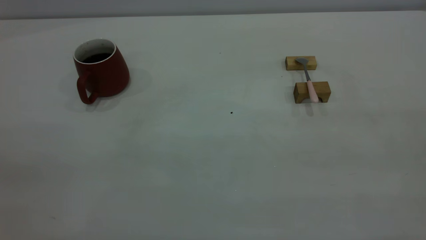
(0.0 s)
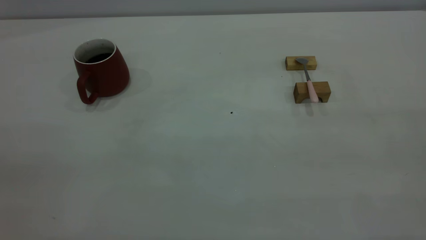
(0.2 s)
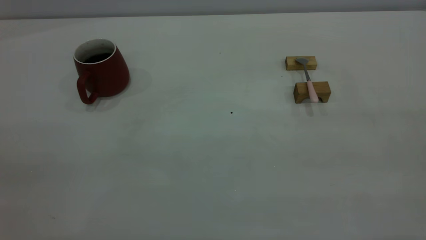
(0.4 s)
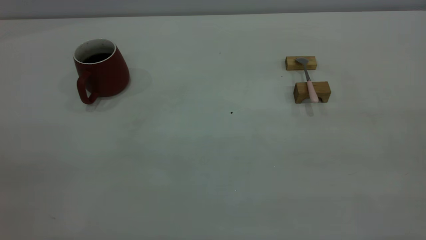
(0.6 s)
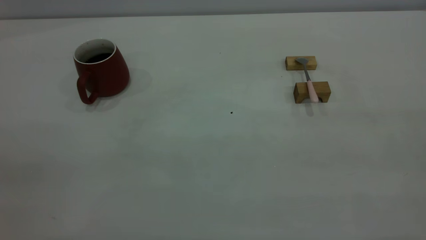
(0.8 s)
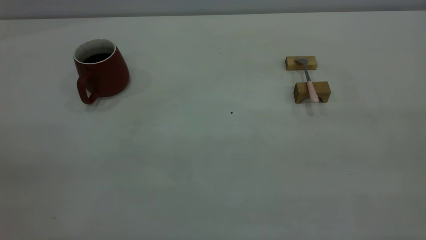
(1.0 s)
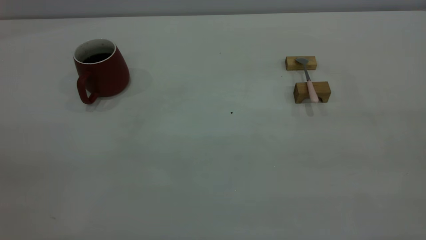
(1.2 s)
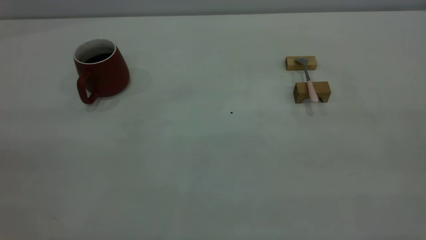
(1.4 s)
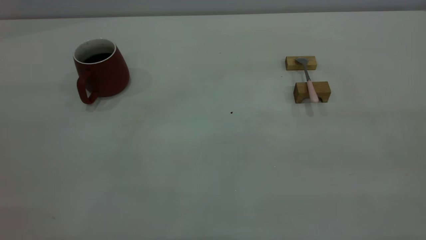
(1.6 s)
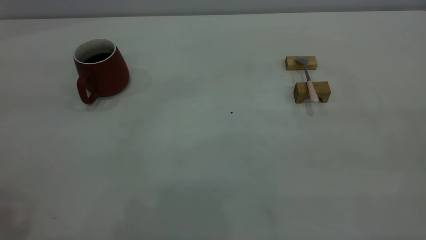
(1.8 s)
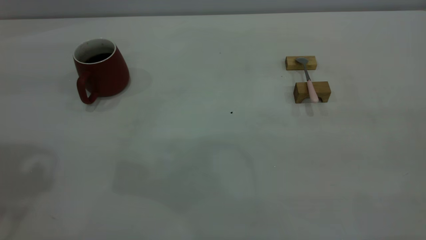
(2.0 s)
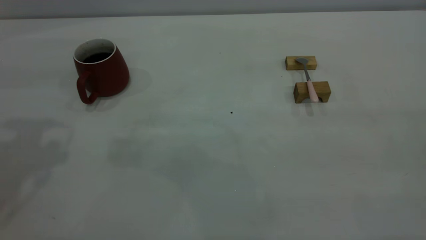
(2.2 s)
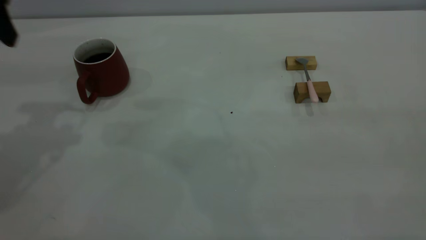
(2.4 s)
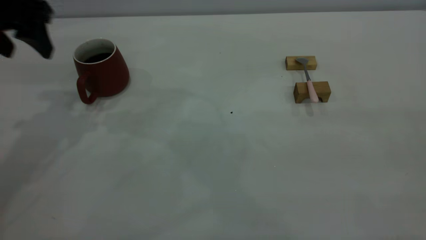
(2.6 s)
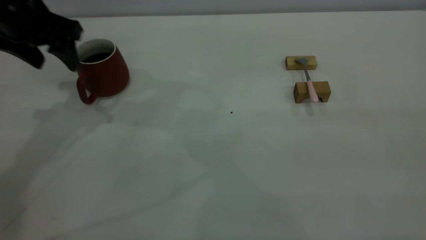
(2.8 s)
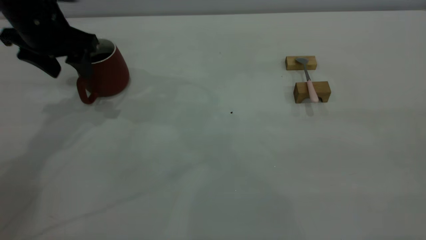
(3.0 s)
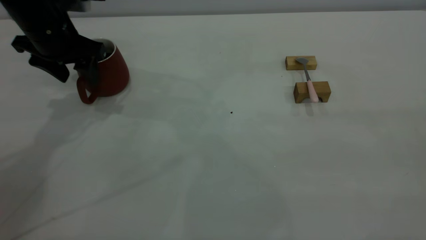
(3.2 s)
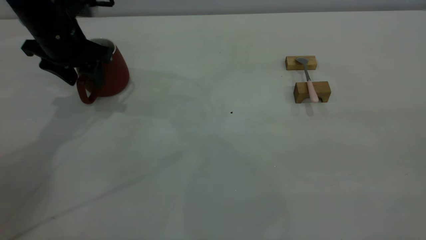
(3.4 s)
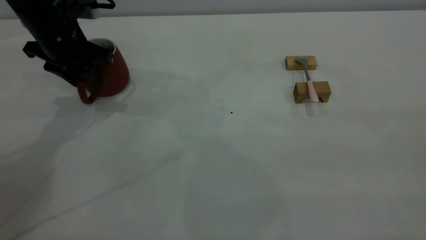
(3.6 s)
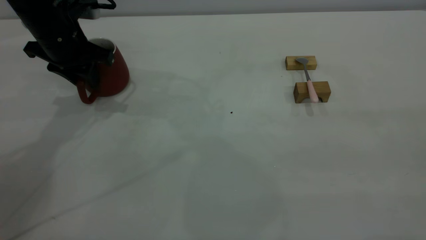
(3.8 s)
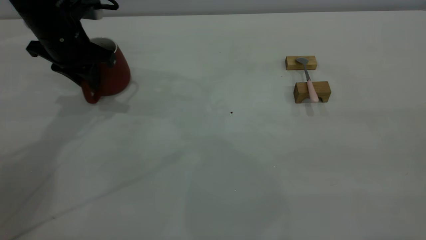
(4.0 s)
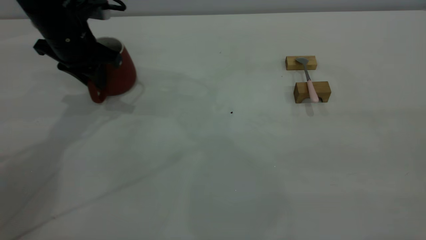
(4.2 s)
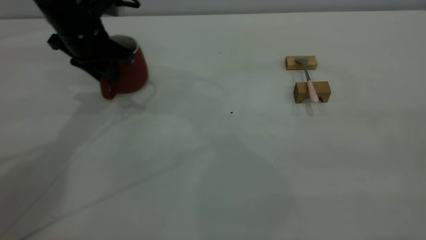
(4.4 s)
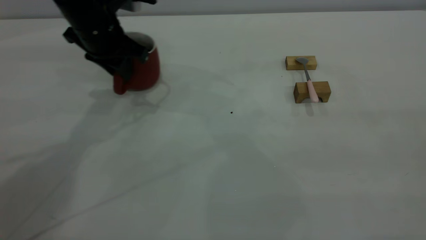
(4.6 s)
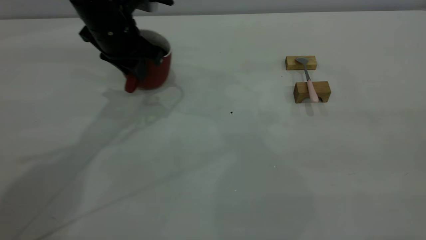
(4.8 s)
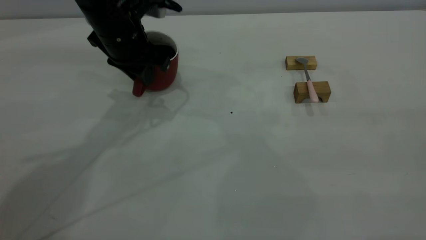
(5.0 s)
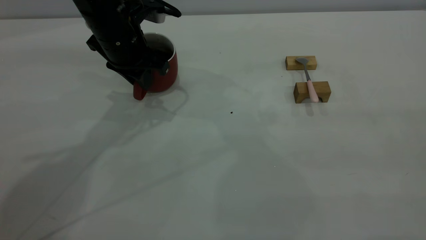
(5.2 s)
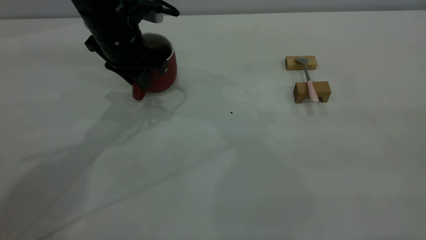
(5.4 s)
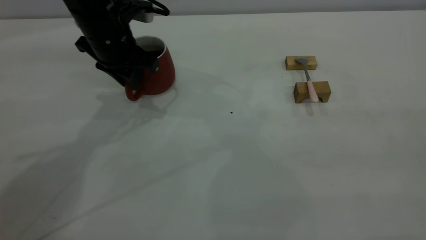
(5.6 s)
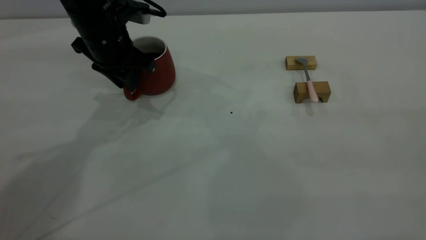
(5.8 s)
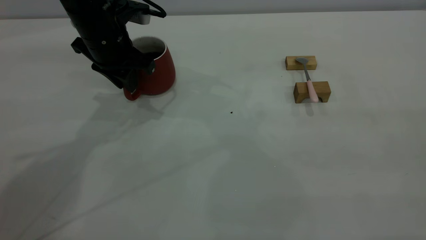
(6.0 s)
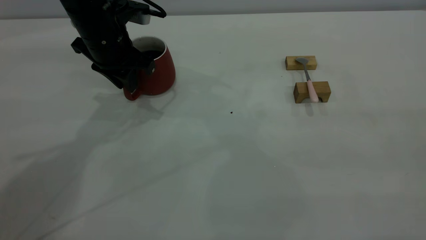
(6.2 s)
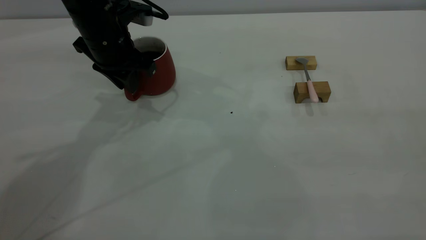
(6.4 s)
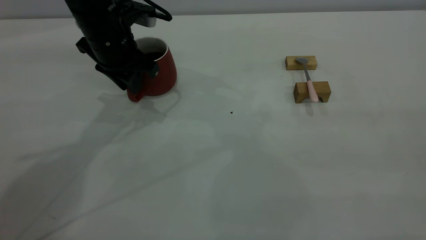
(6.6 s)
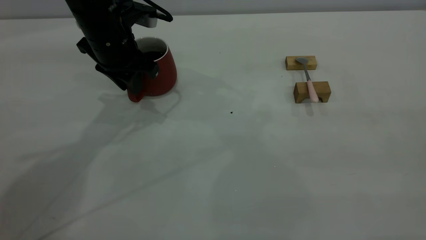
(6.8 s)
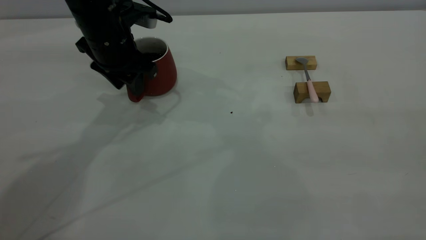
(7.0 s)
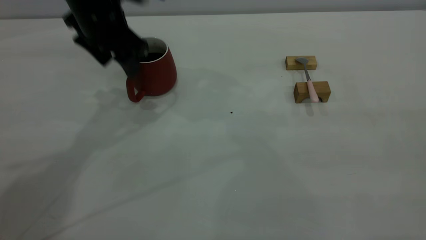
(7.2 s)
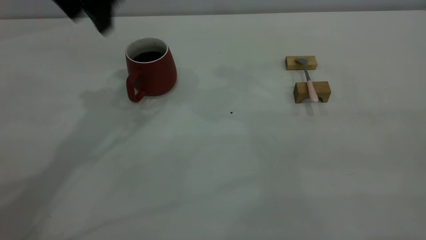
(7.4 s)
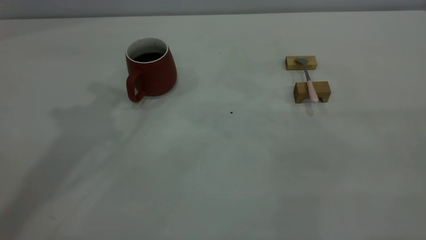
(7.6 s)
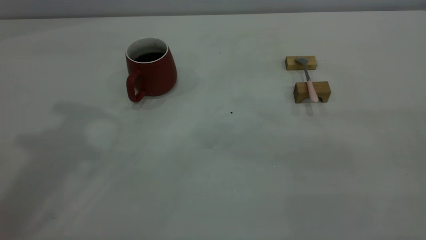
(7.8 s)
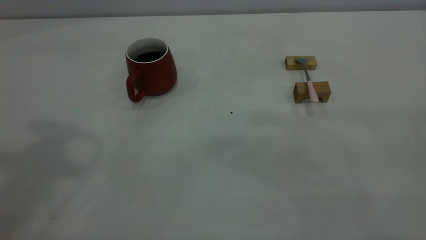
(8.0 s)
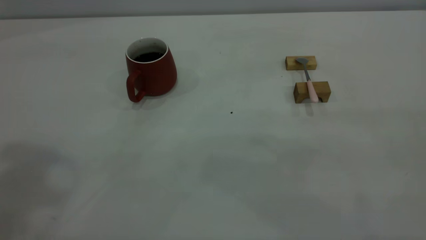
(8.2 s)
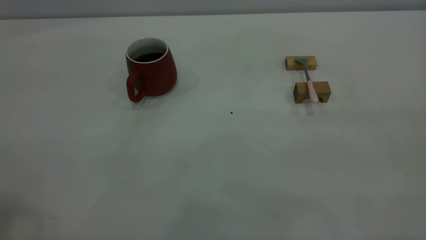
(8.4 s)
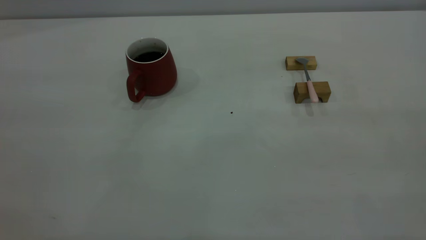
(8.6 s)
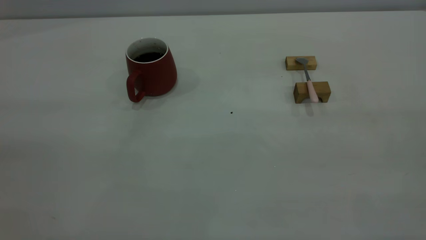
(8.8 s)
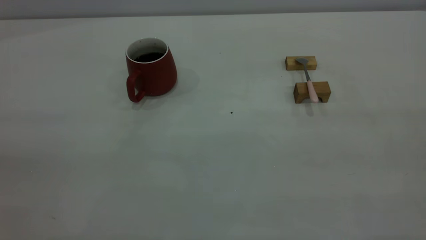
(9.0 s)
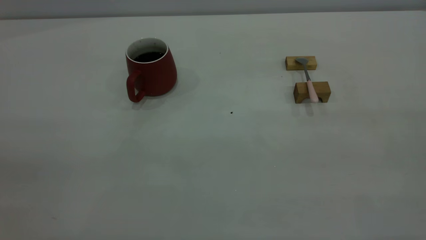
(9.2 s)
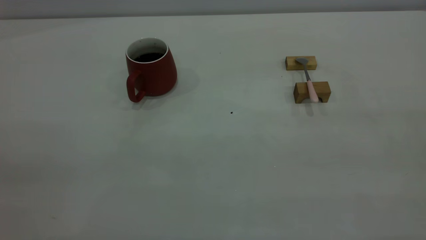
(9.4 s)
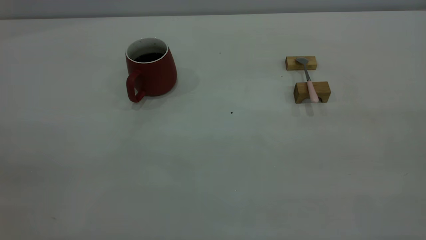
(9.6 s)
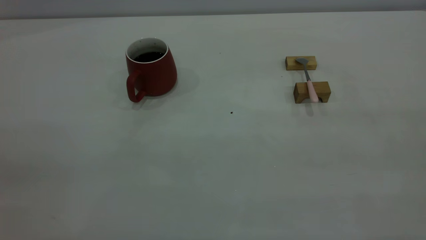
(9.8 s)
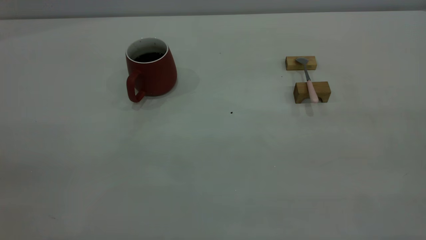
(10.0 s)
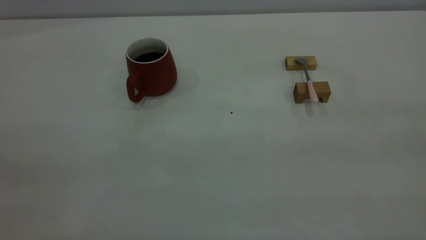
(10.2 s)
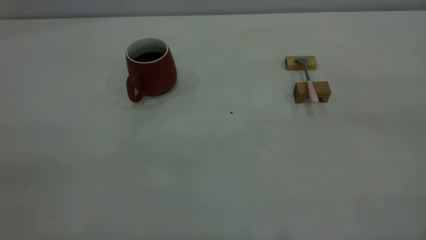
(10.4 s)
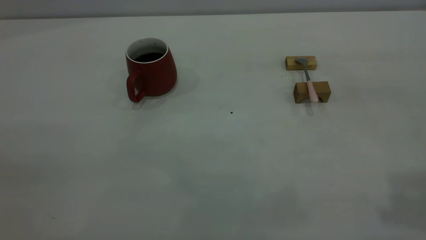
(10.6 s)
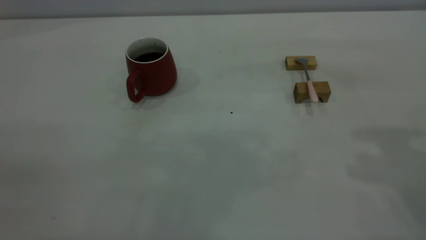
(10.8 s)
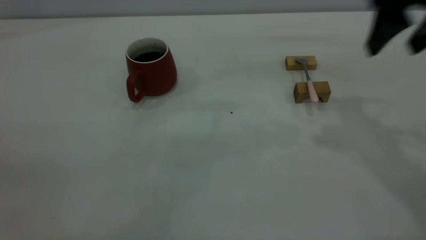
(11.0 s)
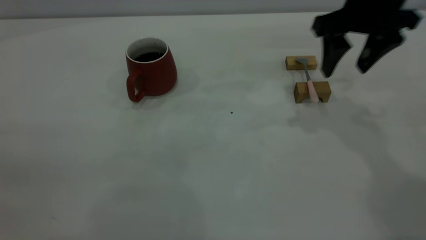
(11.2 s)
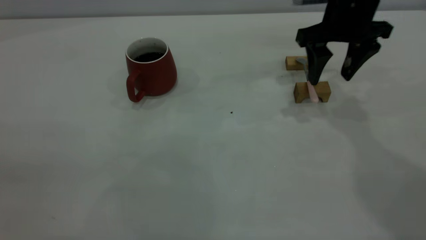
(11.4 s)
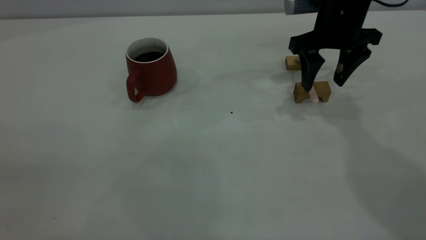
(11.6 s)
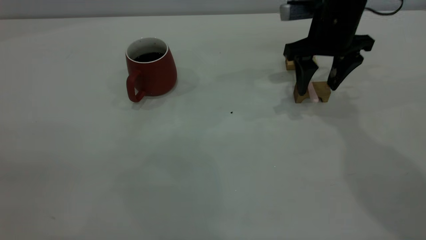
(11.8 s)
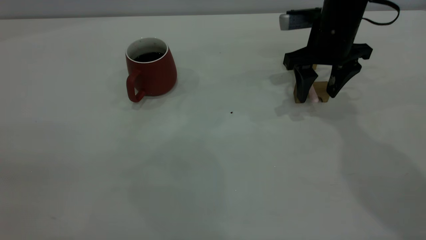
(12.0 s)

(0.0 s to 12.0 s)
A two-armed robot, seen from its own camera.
Step, 0.0 s - 7.2 s: Move the cup with coffee to the center of view.
1.6 s - 3.0 s: The left gripper is displaced forward and downward by some 40 cm, and opens its fingers.
3.0 s - 4.4 s: The left gripper goes roughly 5 cm to the right, and closes its fingers.
4.4 s - 6.0 s: The grippers stay close to where they were, moving slightly.
6.0 s - 7.6 s: The left gripper goes some 25 cm upward, and opens up.
10.4 s - 12.0 s: The right gripper heads forward and downward, covering approximately 40 cm.

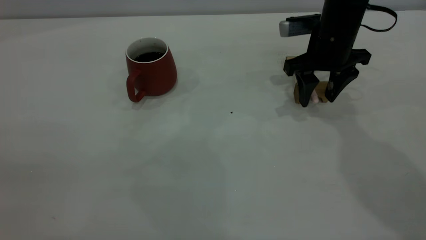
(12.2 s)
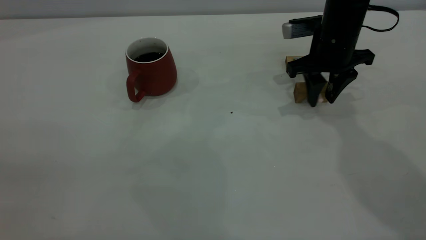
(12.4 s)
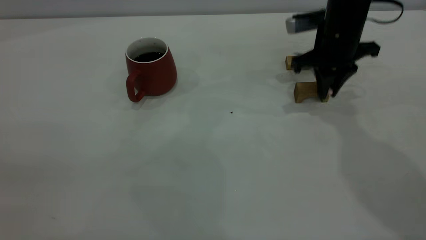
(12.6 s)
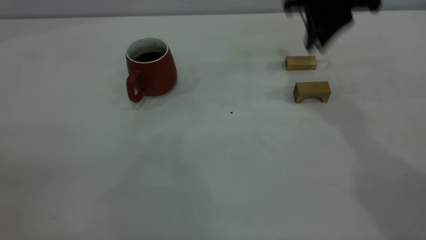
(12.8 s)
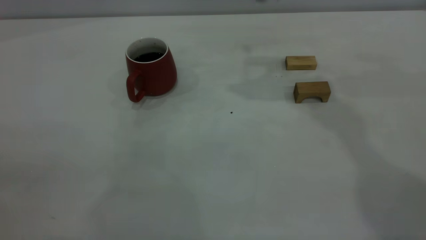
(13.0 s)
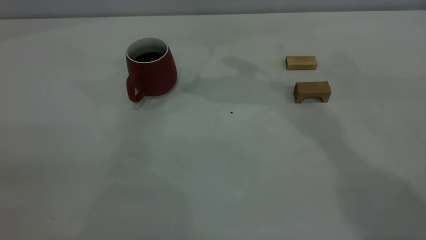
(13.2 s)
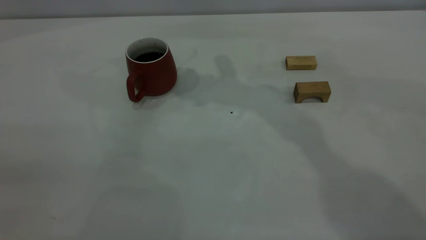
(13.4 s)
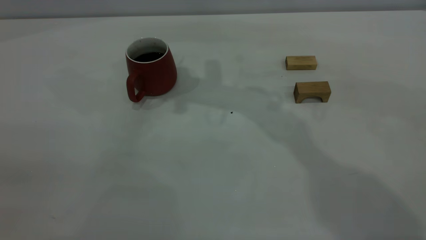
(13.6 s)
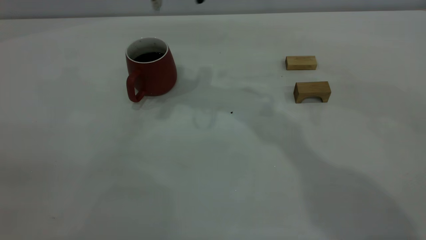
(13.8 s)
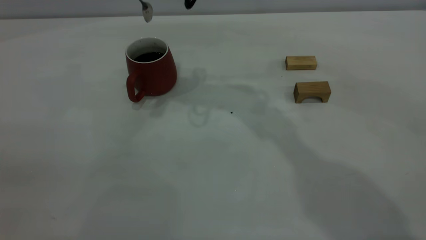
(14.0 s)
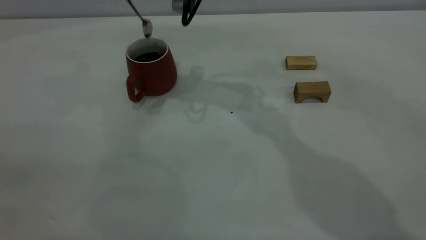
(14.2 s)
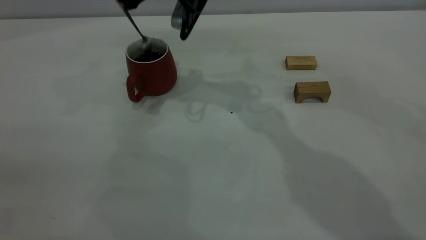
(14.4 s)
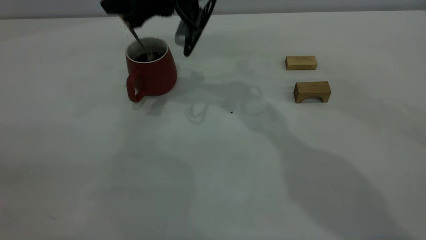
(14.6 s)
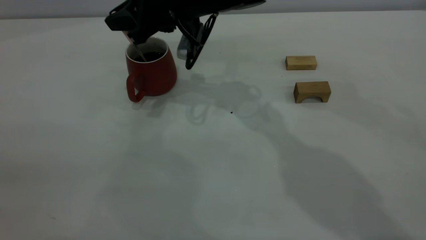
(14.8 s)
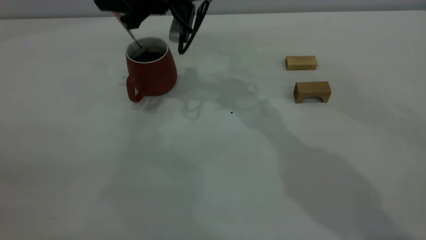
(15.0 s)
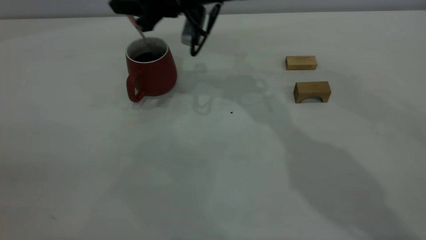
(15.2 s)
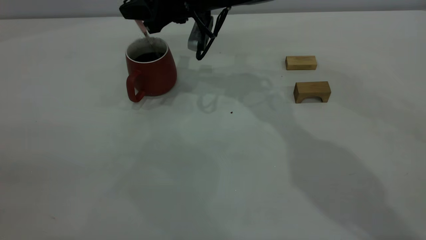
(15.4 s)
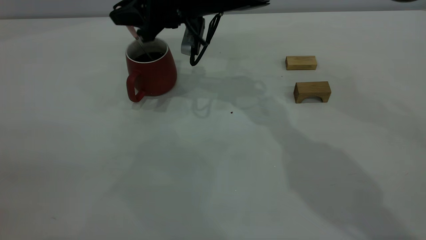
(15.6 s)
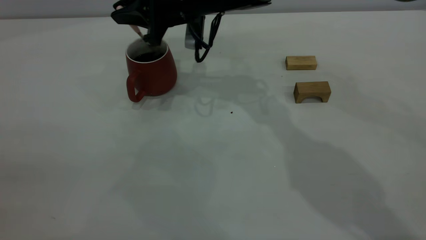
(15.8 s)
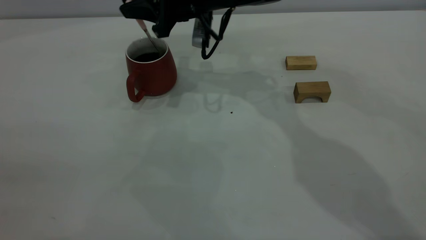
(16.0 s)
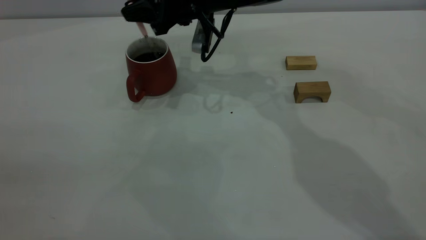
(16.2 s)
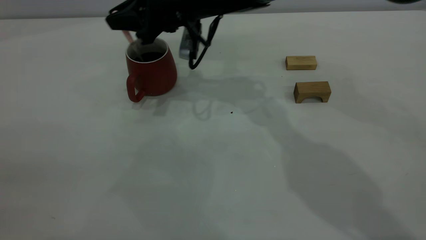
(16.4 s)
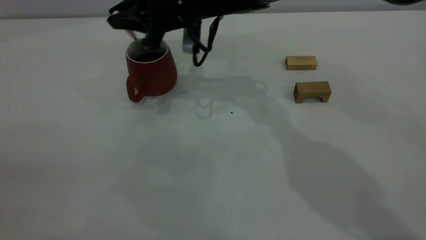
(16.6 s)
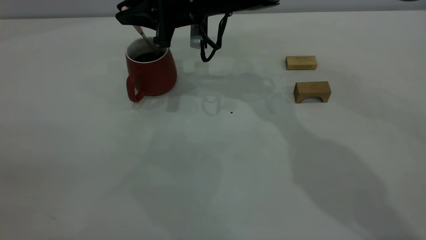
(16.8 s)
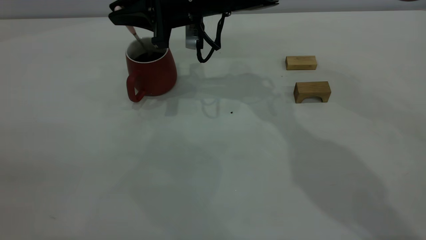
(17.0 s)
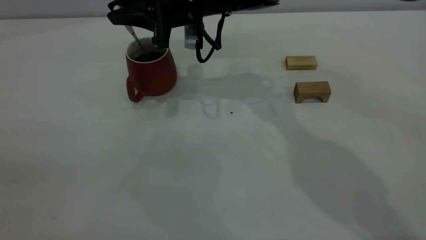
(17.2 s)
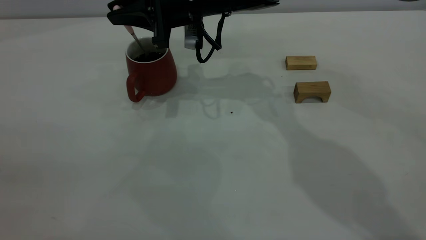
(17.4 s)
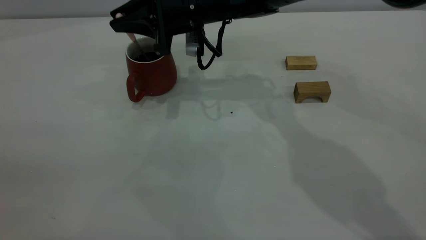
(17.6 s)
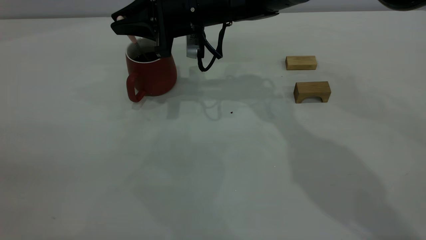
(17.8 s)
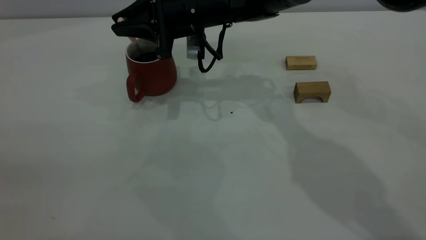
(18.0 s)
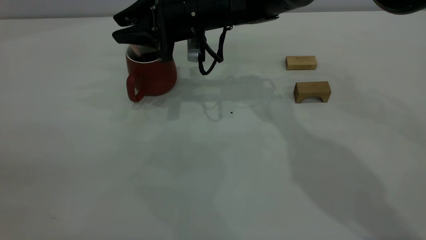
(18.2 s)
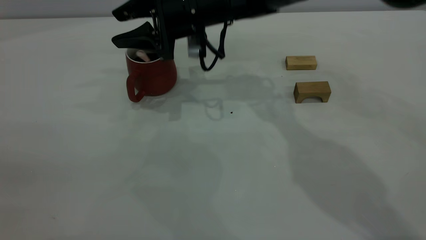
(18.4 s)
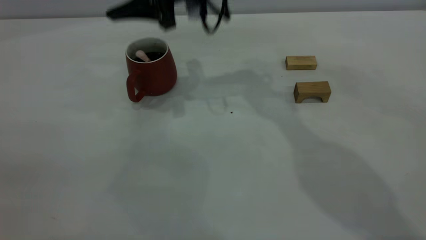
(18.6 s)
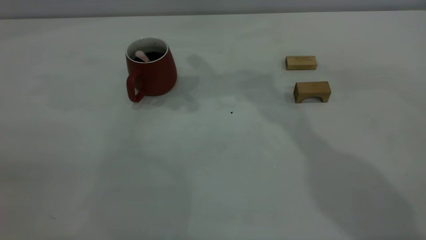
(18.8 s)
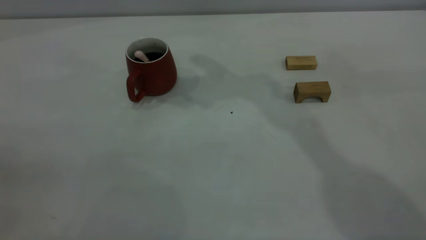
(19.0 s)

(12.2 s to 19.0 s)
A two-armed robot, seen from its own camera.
Step, 12.8 s - 18.4 s: Stir the coffee in the cup.
12.2 s - 13.6 s: The right gripper moves to the left and upward, some 25 cm, and closes.
13.6 s - 15.0 s: The right gripper shifts roughly 10 cm downward.
15.0 s - 16.2 s: The grippers move only a little.
17.6 s - 19.0 s: The right gripper shifts roughly 25 cm upward, and opens.
